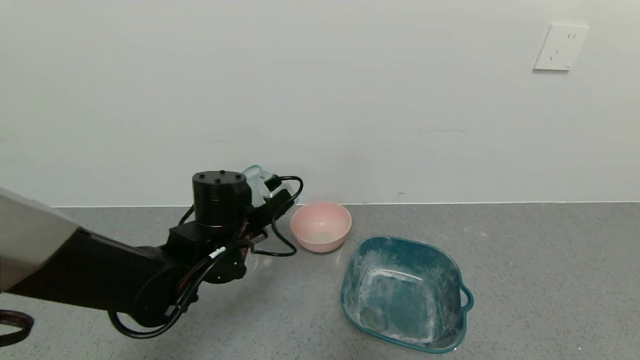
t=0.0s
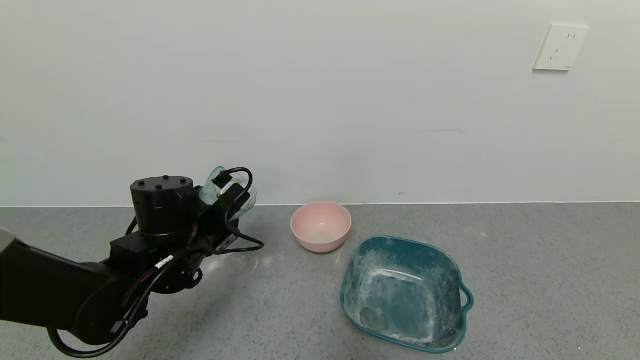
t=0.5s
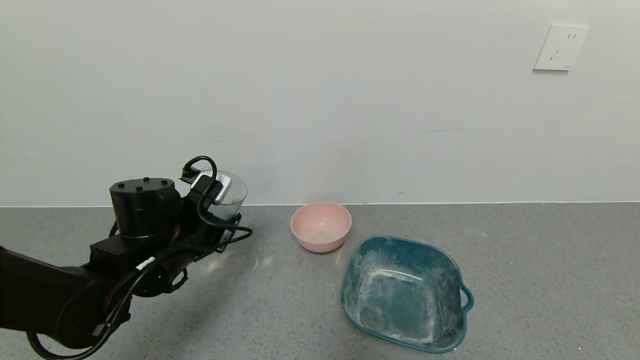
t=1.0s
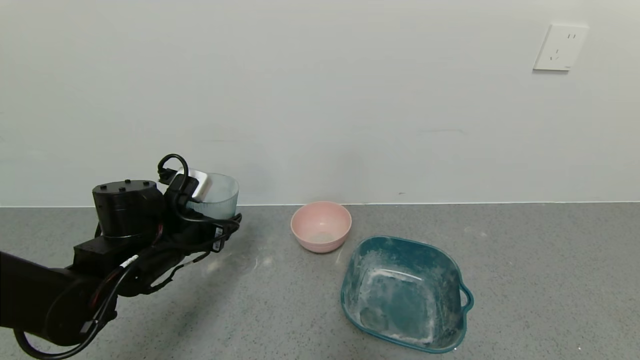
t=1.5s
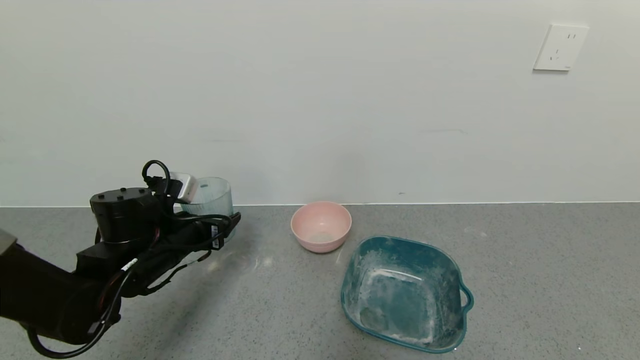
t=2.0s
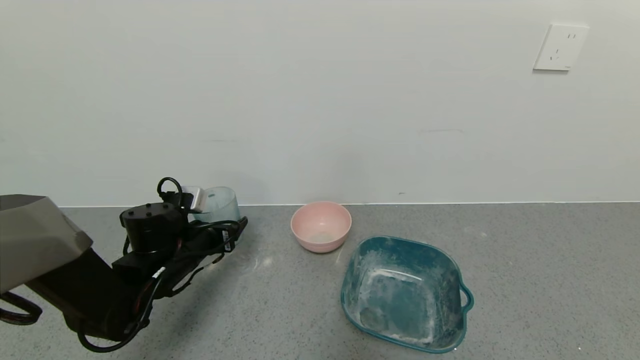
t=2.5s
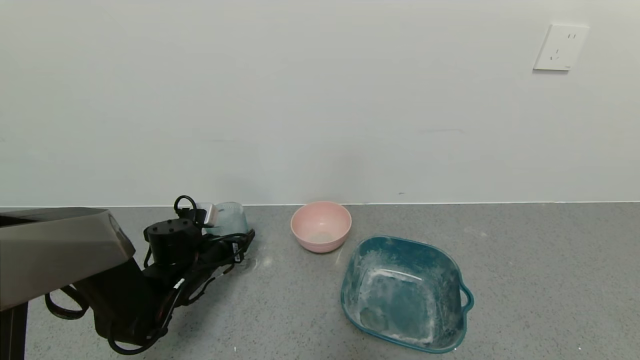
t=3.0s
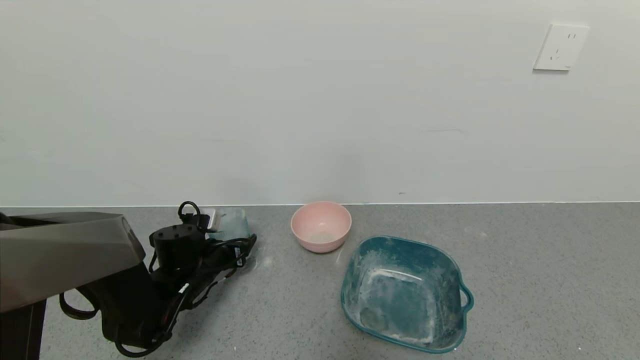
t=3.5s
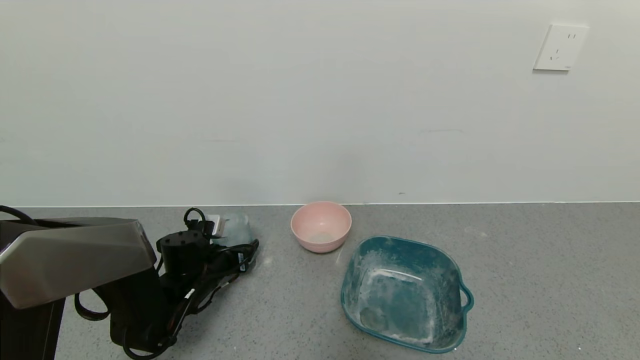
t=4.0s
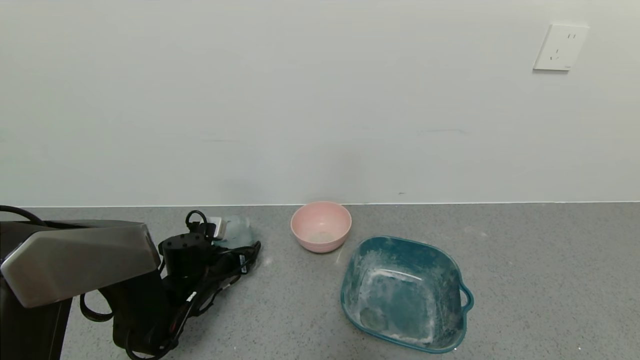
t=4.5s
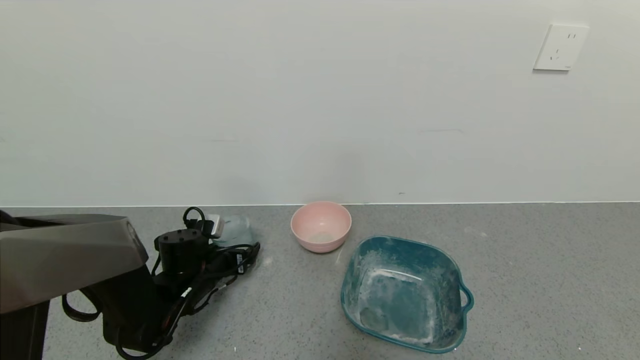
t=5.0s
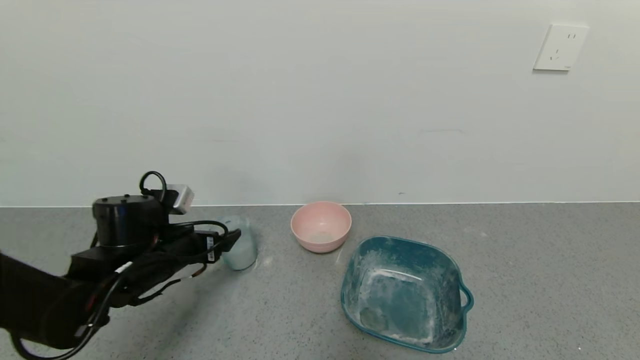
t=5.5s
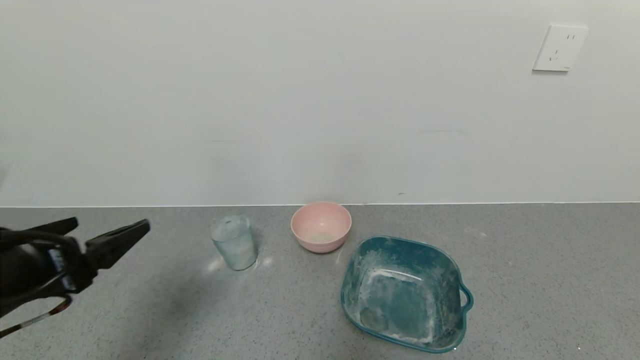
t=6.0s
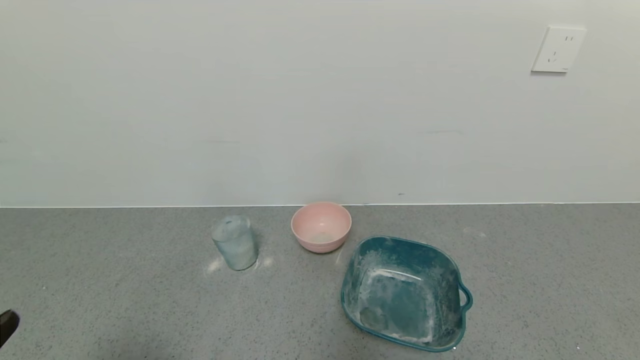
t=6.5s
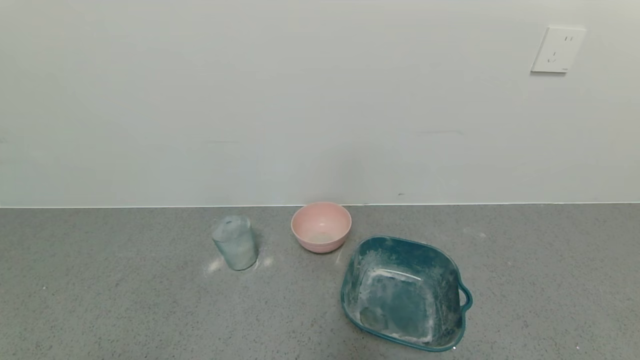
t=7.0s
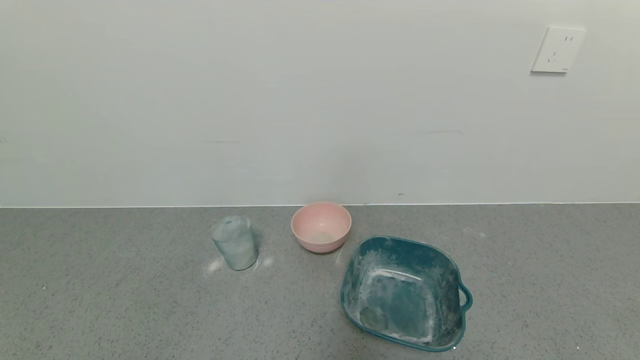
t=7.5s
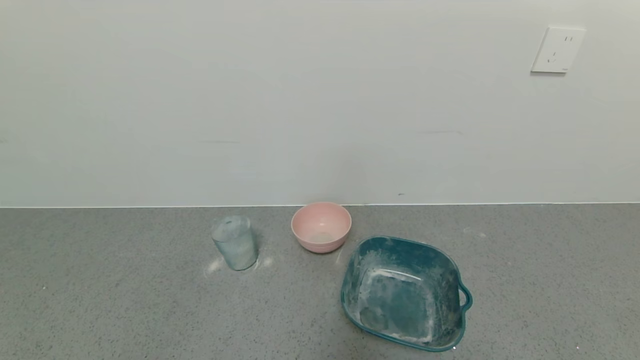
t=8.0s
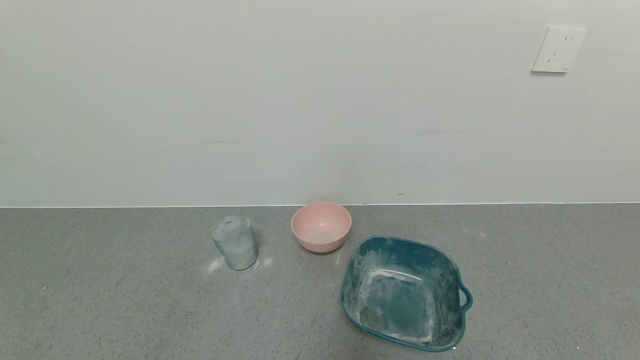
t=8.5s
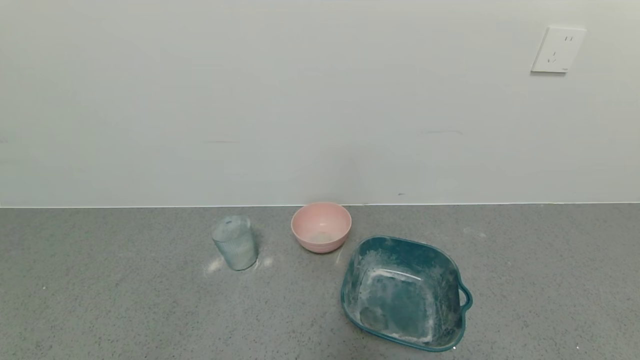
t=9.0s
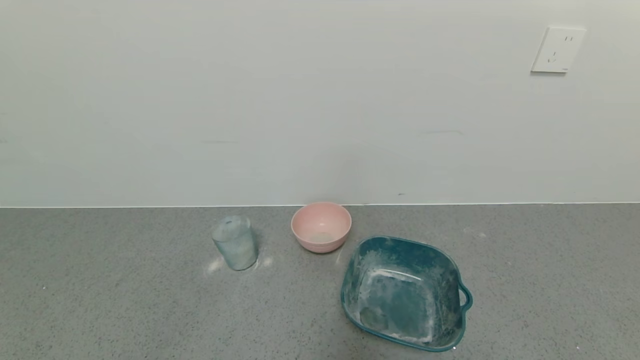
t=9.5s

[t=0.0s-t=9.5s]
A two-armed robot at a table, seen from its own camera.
Task of the whole recording: use a gripper to pick up the cup and pour the powder into a bowl or tray.
Step, t=0.0s to t=5.0s: Place the glass cup down with the left gripper.
t=0.0s to t=2.0s: The left gripper moves to the left, approximately 10 cm.
t=2.0s to t=4.0s: The left gripper is displaced downward by about 10 cm.
t=4.0s to t=5.5s: The left gripper heads upward and backward, covering roughly 10 cm, and opens.
t=5.5s to t=7.5s: The left gripper shifts approximately 35 cm backward.
